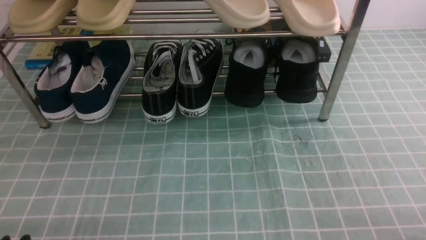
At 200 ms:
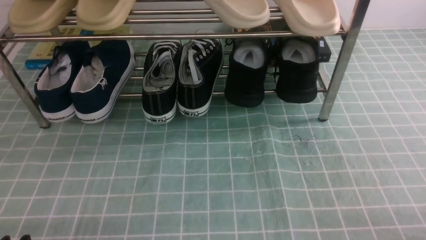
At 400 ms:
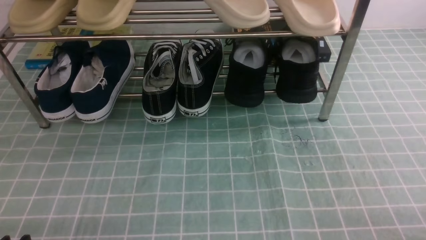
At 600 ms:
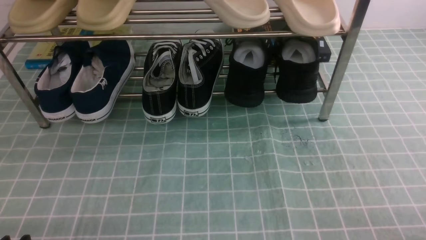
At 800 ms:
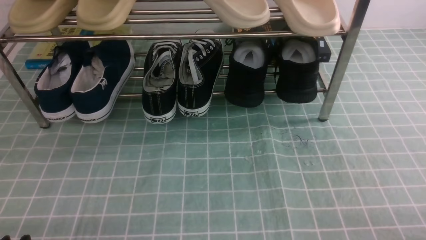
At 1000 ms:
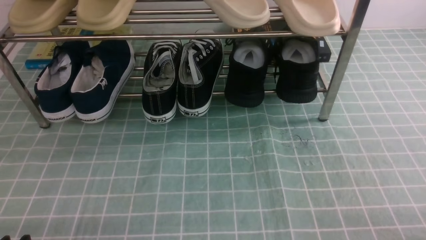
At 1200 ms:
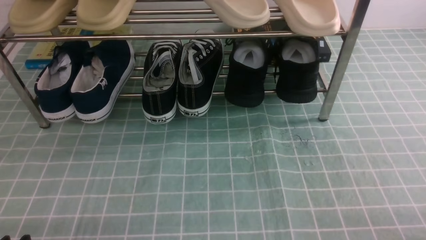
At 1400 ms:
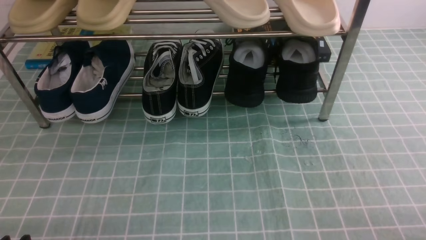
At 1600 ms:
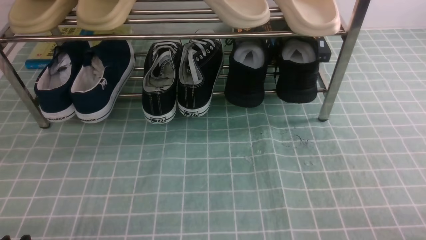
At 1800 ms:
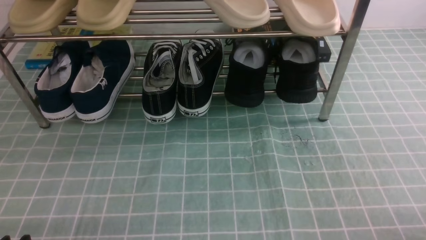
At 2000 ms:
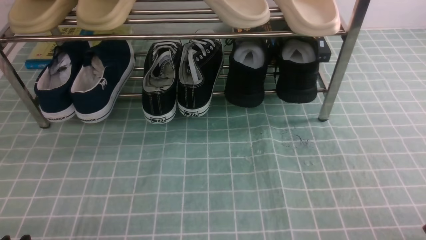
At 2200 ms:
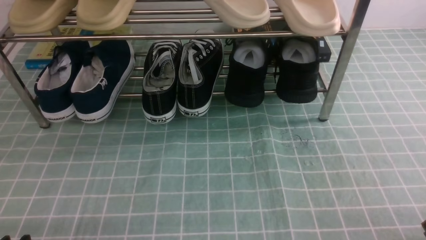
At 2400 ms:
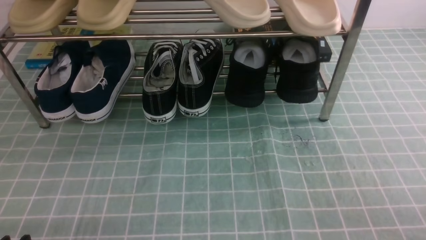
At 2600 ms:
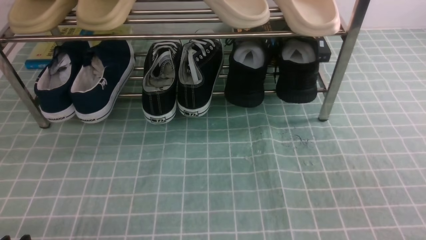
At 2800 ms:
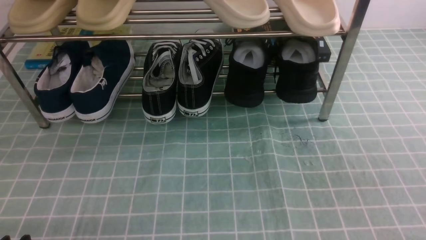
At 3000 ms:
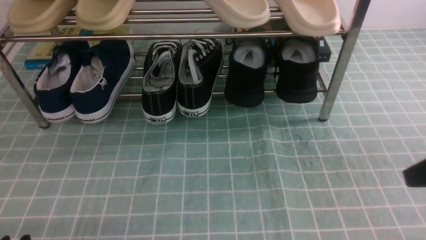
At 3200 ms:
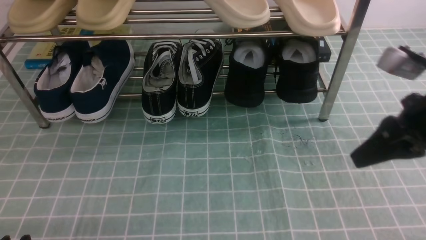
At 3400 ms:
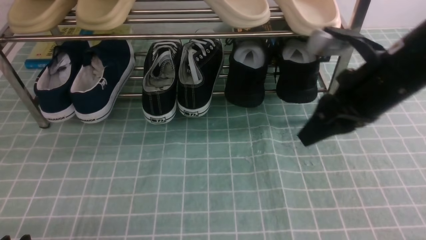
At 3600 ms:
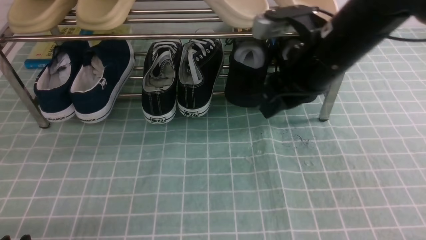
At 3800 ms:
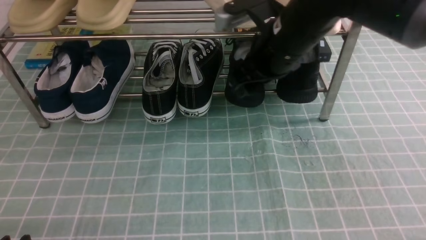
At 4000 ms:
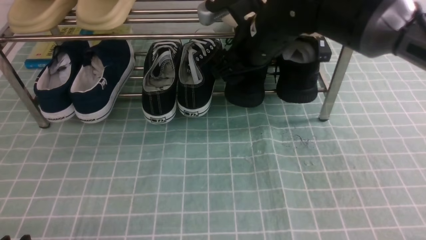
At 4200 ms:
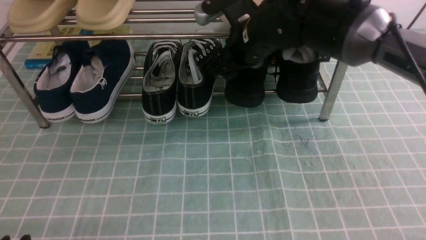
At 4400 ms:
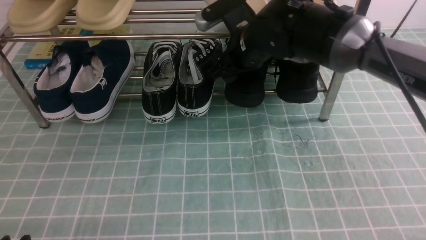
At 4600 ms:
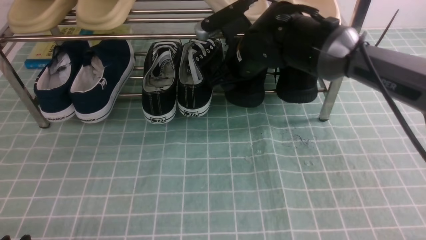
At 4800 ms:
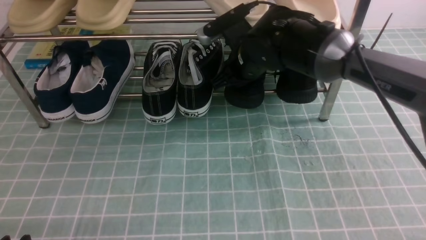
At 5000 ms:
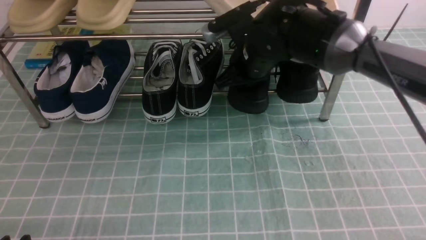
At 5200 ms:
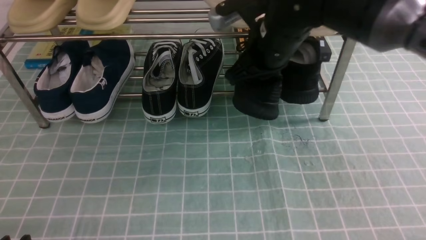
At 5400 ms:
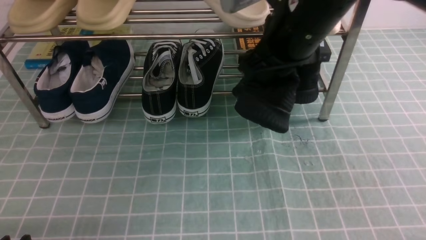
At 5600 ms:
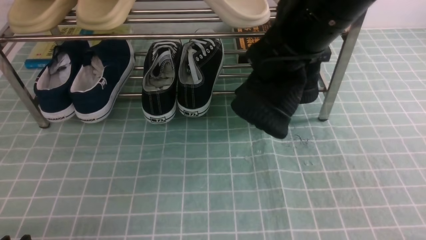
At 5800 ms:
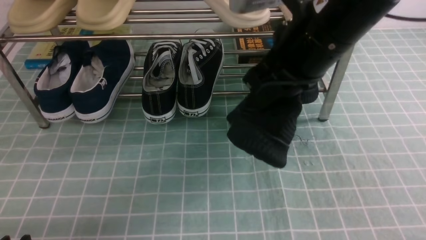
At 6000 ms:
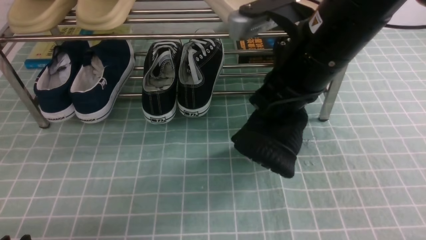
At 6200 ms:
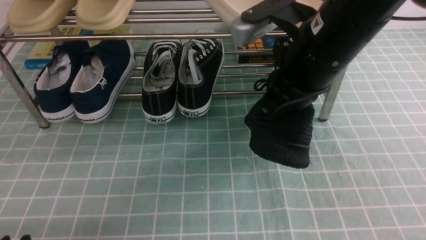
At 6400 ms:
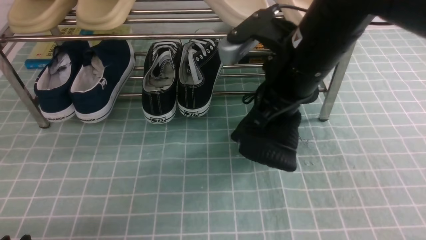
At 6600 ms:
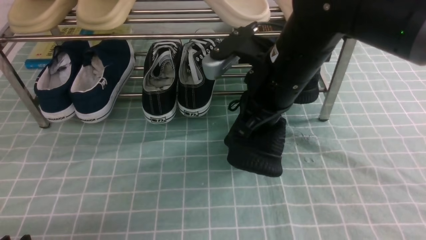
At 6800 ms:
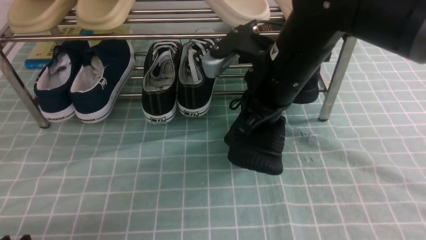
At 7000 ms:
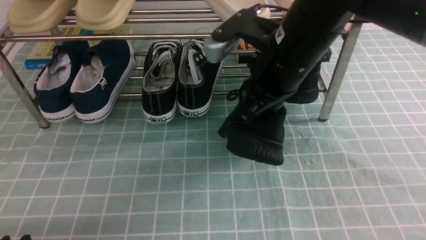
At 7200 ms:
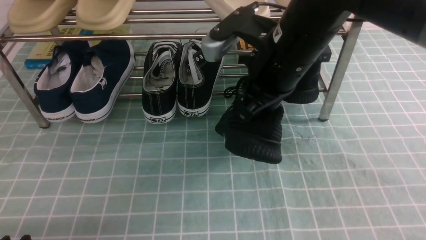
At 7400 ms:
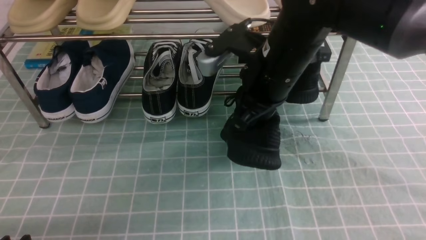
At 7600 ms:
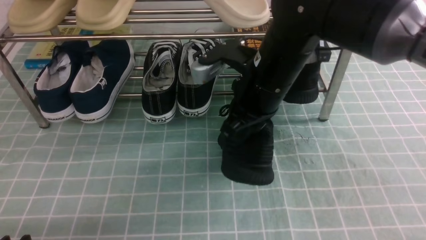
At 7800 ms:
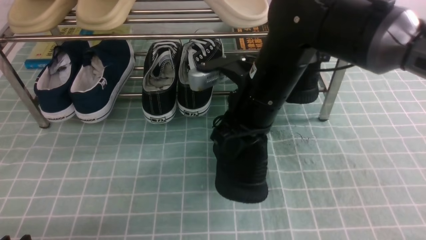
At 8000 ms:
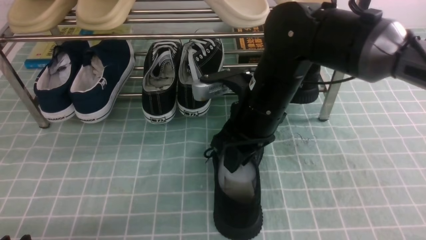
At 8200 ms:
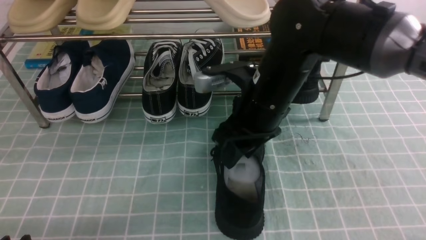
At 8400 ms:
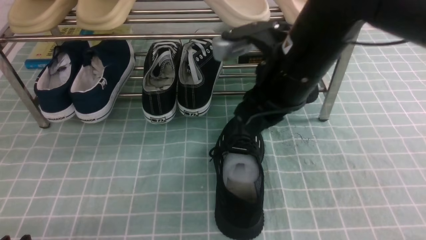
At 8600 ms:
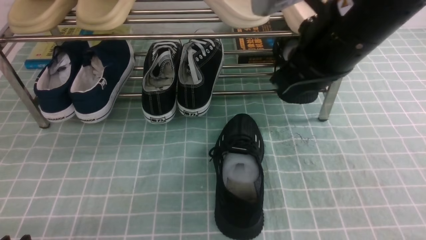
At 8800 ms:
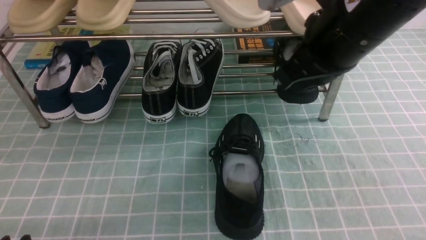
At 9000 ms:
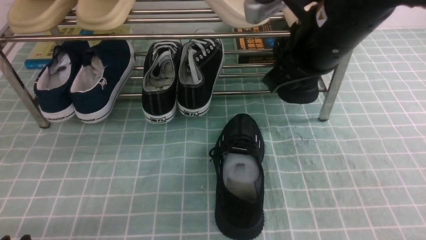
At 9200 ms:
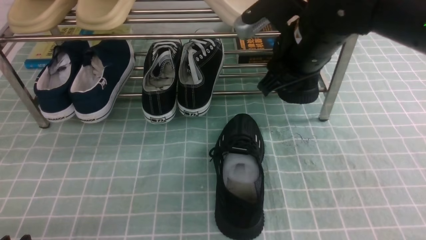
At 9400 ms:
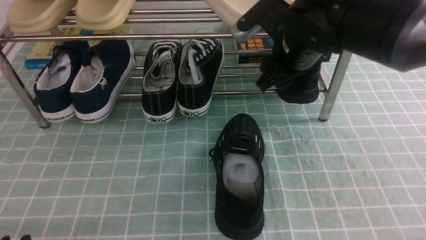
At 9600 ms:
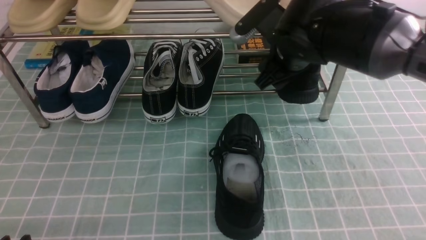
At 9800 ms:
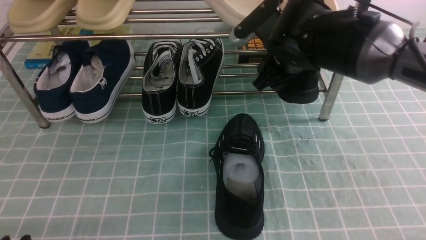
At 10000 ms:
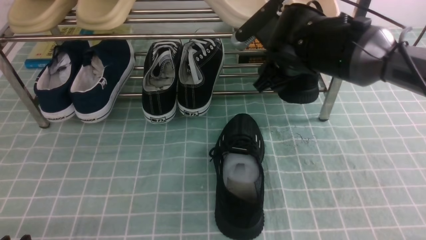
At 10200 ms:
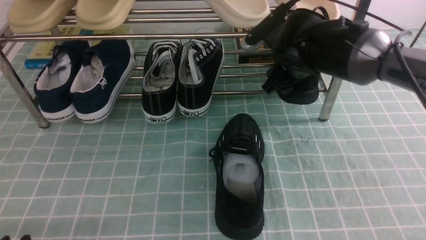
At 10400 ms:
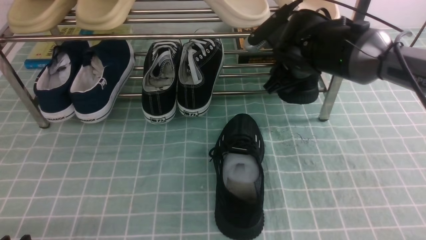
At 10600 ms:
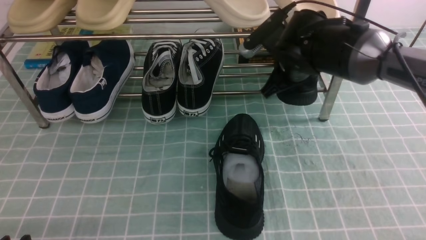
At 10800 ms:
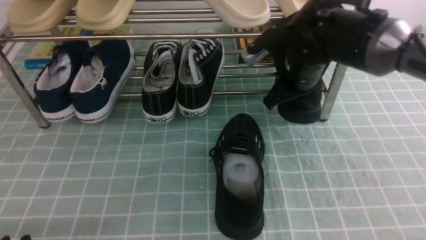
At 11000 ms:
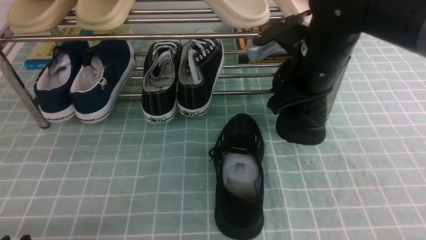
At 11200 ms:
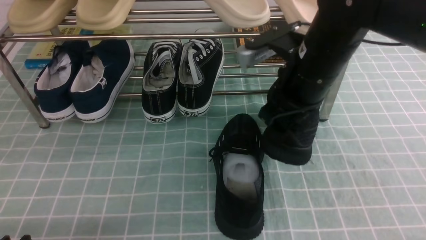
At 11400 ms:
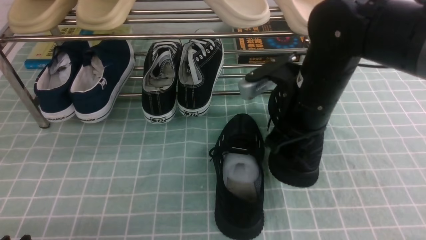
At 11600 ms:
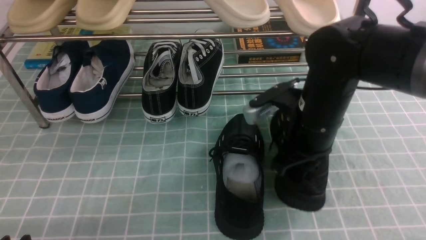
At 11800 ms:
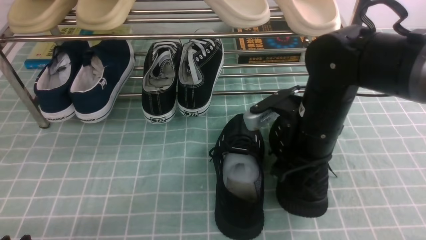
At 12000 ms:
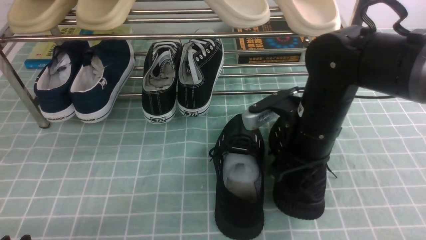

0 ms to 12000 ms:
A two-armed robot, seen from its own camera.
Step, 0 ms to 5000 ms: use the right arm to clamp a shoe on the right side of the shoe rack.
Step, 5200 ms to 8600 ms: use the right arm to take out the clamped shoe from the shoe rack and put it down.
Step, 8800 ms to 10600 ms: use the right arm to clamp a shoe on the right side of the shoe rack.
3000 ms to 4400 ms: The right gripper goes some 35 cm forward and to the left, and opens.
4400 ms to 6000 ms: The right gripper moves backward and upward, some 15 cm, and closes up.
6000 ms to 7600 ms: The right gripper shifts some 5 cm downward.
7600 ms to 9000 ms: The right gripper goes roughly 10 cm upward and to the right, and opens and closes again.
9000 ms to 10400 ms: The right gripper travels downward and forward by some 15 cm, and opens up.
10400 ms to 12000 ms: The right gripper travels backward by about 10 cm, and closes its fingers.

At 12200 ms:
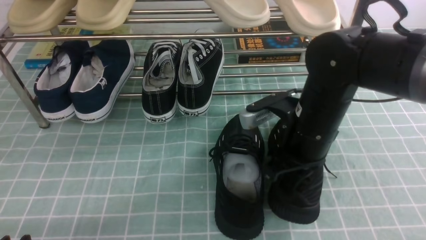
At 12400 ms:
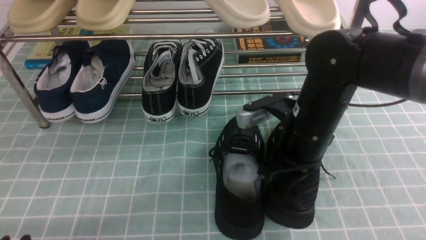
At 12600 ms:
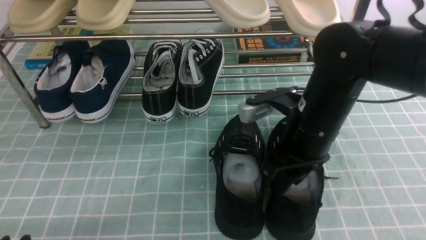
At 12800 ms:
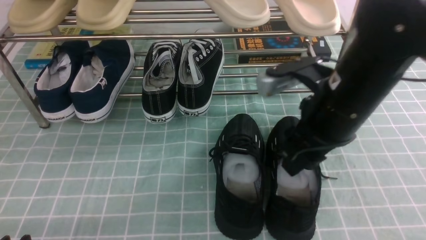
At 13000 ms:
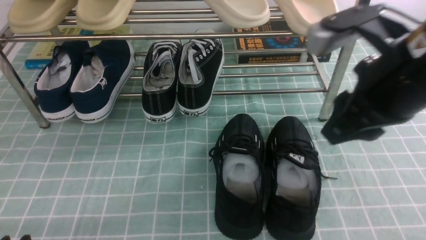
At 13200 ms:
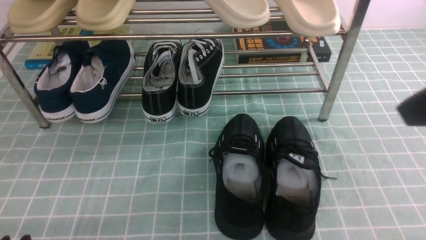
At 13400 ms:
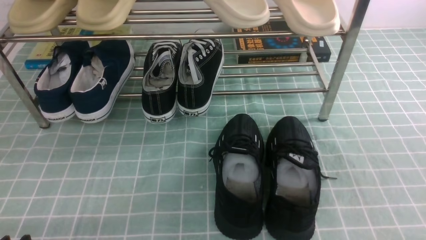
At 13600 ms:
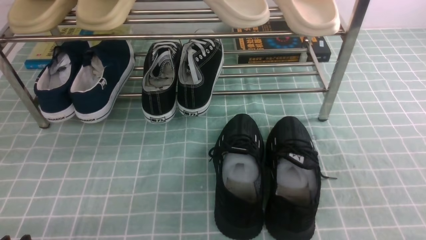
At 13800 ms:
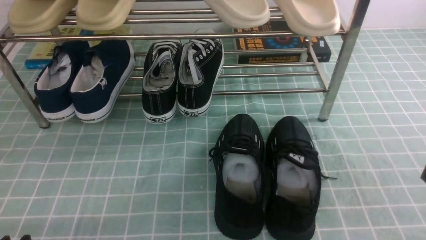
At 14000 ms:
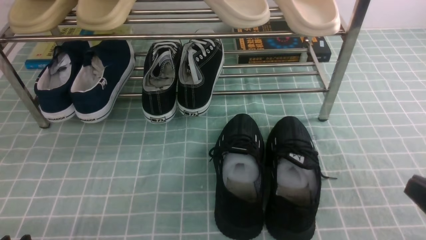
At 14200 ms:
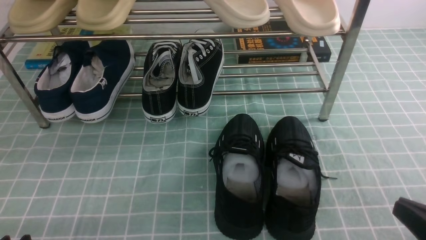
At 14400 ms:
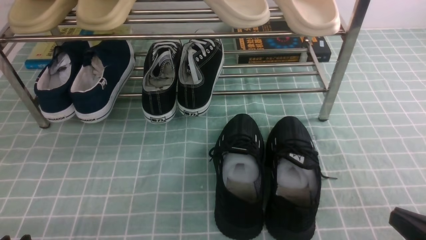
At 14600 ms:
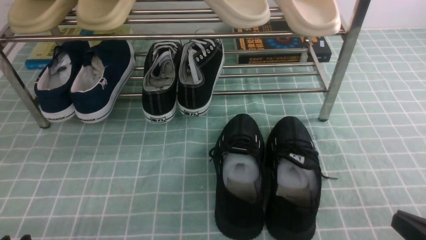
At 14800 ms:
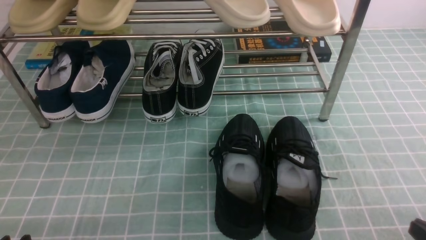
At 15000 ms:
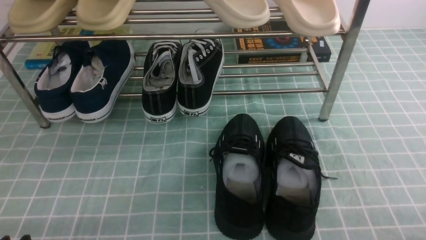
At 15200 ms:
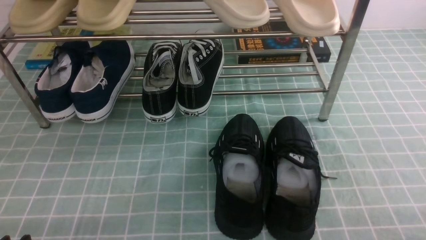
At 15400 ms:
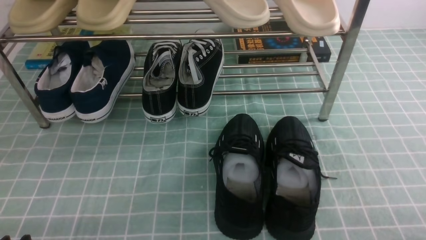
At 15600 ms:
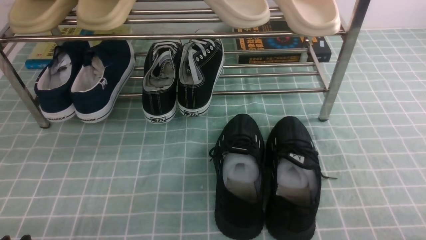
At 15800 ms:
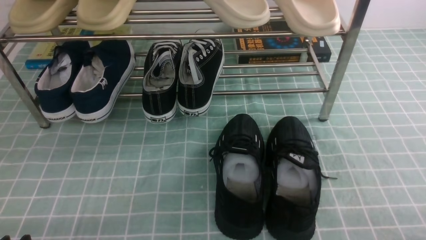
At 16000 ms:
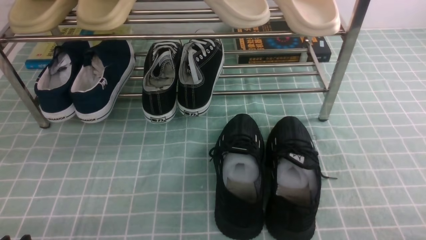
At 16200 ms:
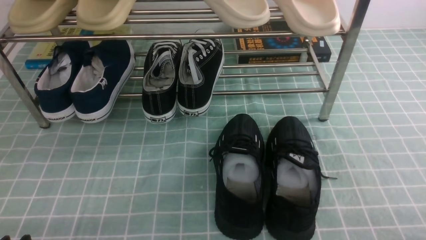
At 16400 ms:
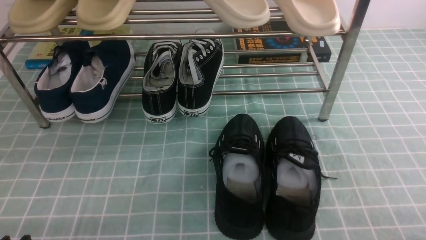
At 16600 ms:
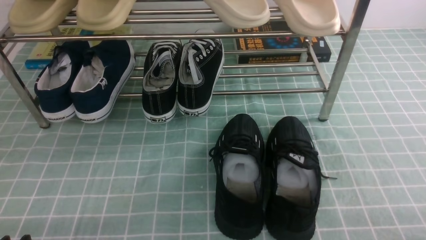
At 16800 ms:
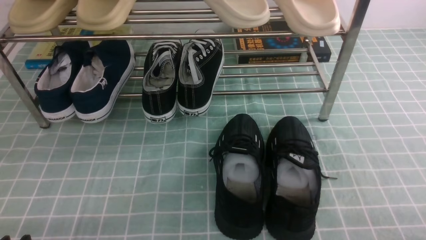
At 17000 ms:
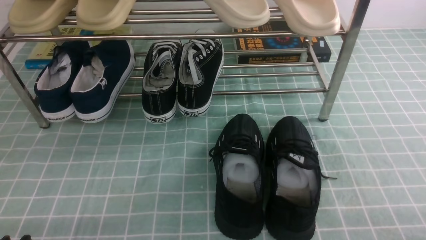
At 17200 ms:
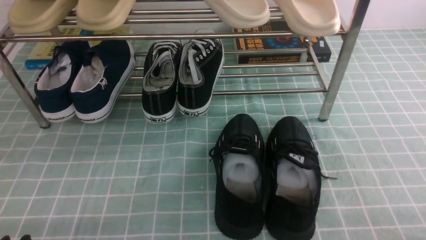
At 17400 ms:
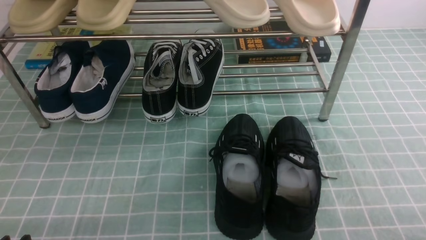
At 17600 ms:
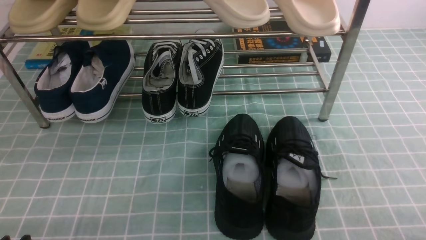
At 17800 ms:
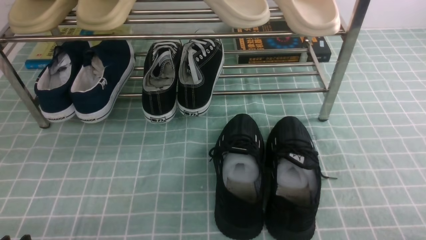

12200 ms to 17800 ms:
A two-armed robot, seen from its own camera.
12200 ms to 13600 ms: The right gripper is displaced backward, to the right and upward by roughly 30 cm, and opens, then closes again.
16400 ms to 17800 ms: Neither gripper changes place.
